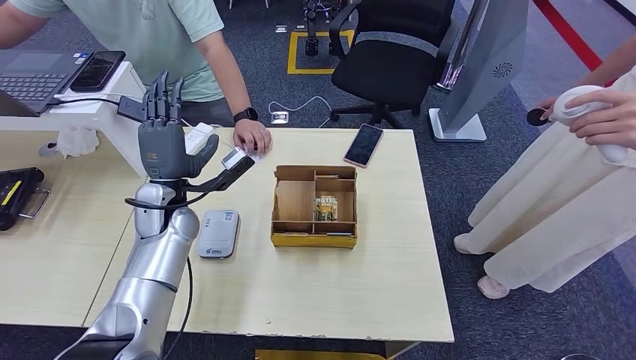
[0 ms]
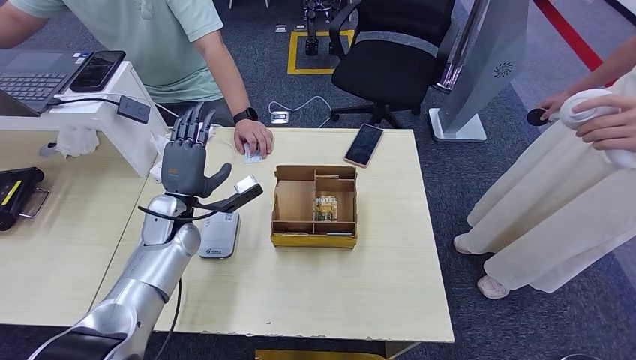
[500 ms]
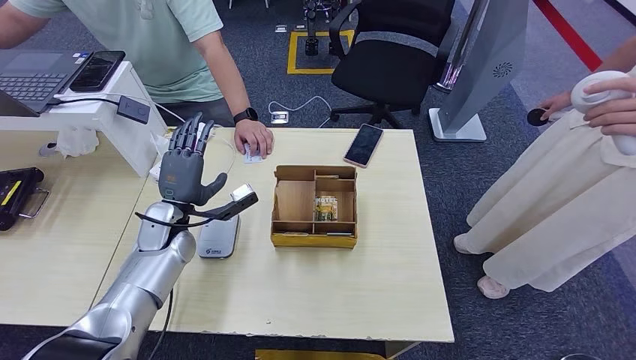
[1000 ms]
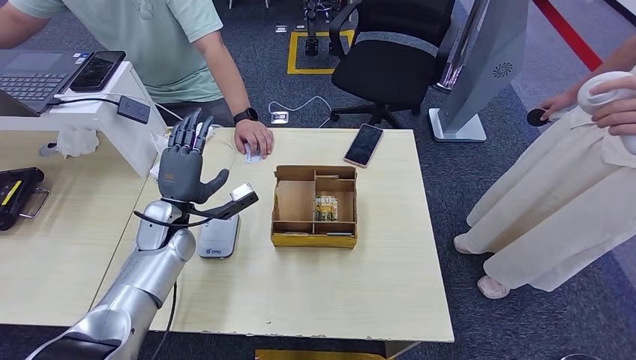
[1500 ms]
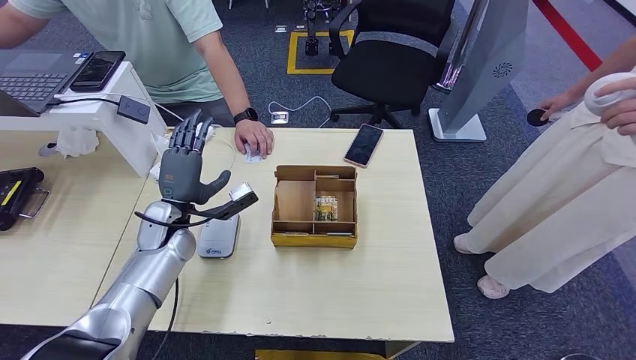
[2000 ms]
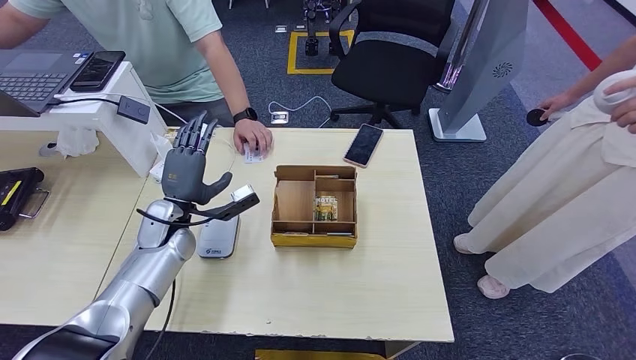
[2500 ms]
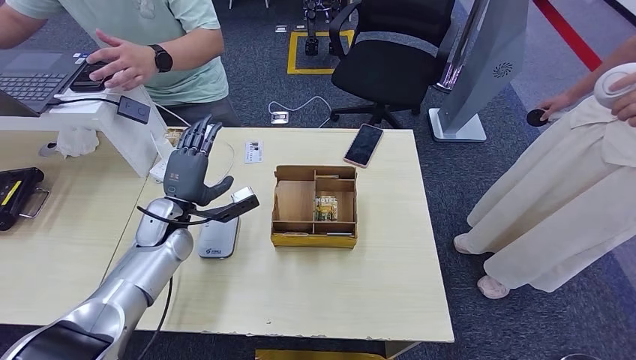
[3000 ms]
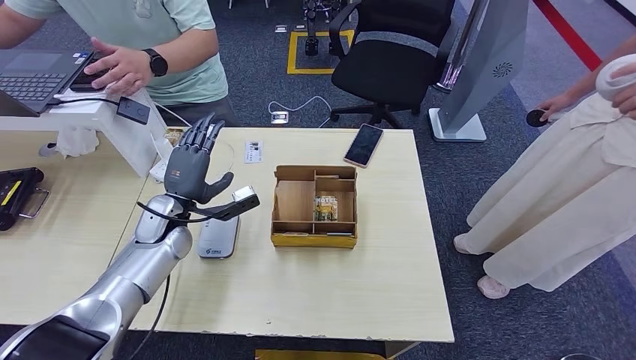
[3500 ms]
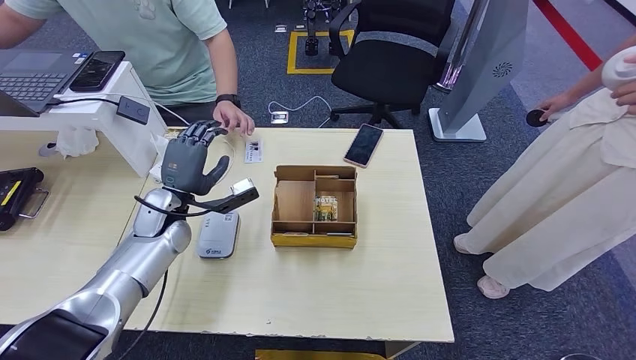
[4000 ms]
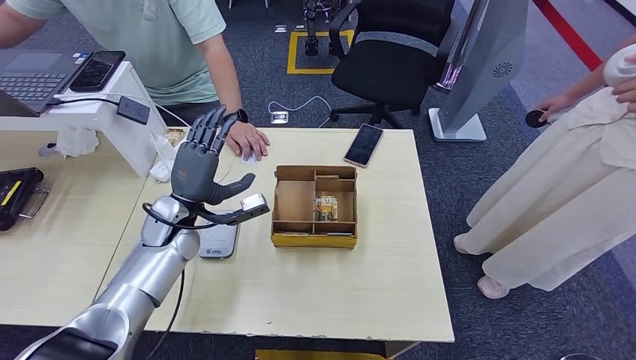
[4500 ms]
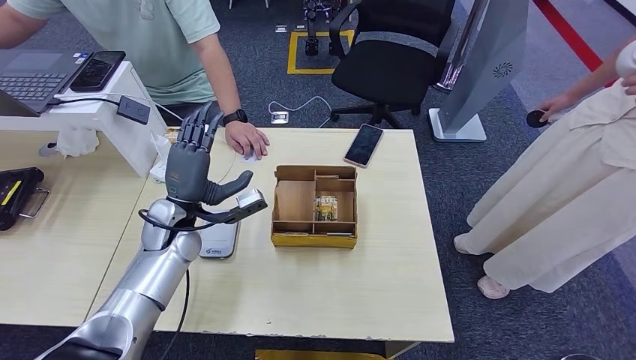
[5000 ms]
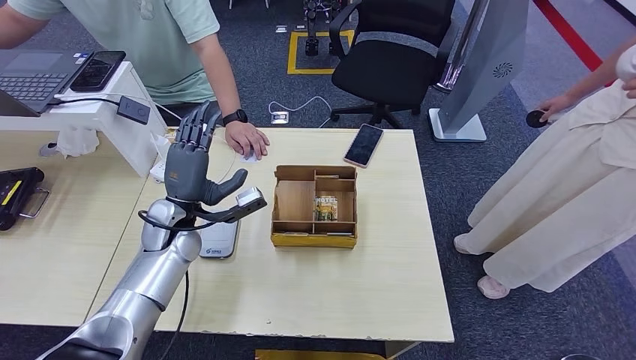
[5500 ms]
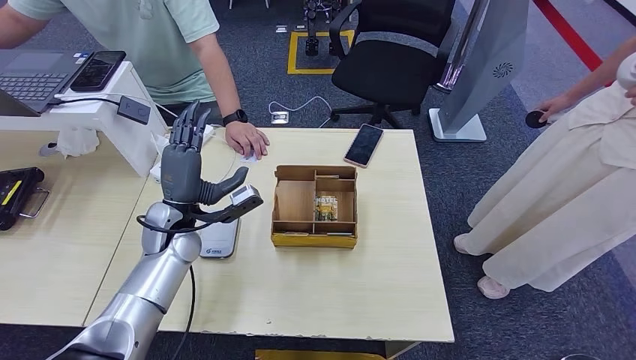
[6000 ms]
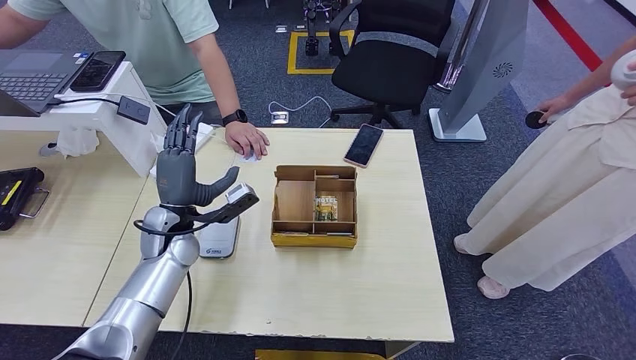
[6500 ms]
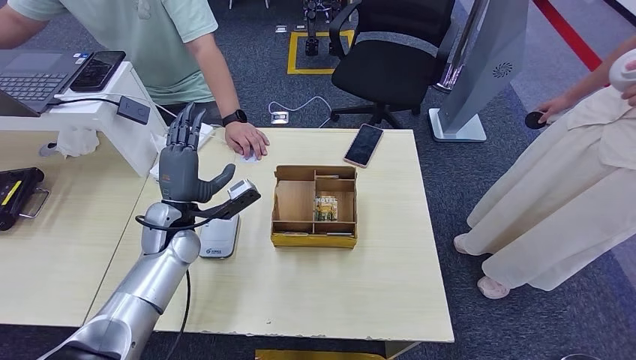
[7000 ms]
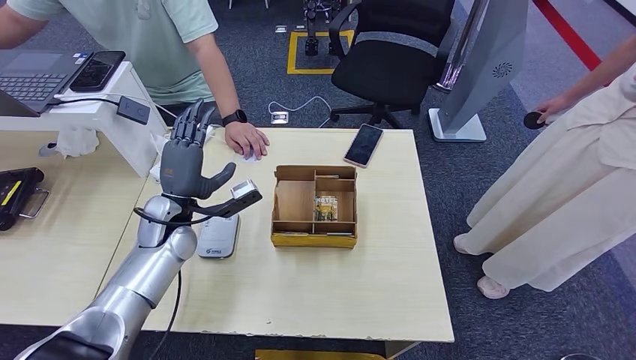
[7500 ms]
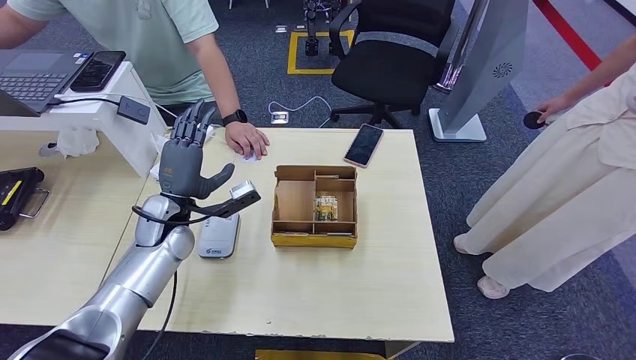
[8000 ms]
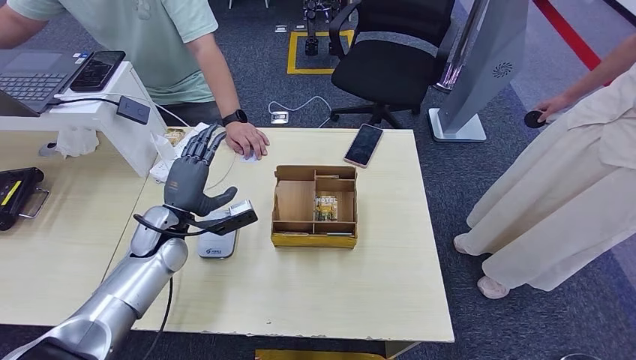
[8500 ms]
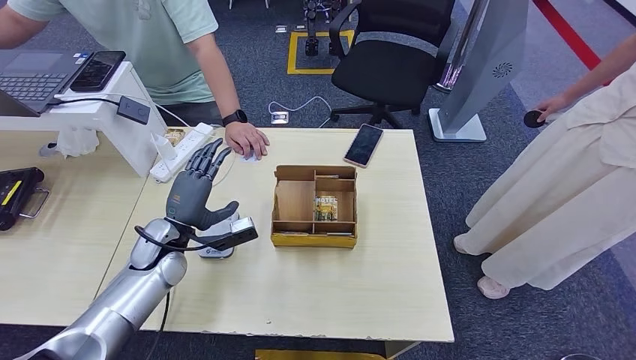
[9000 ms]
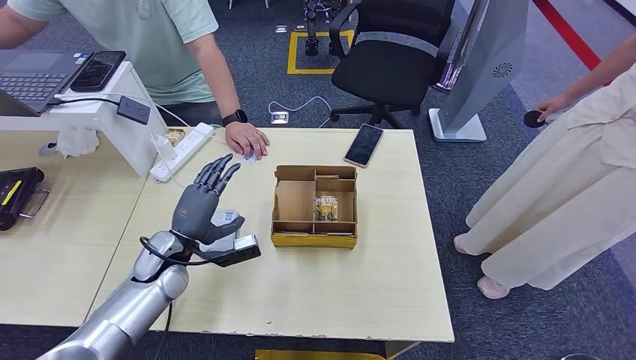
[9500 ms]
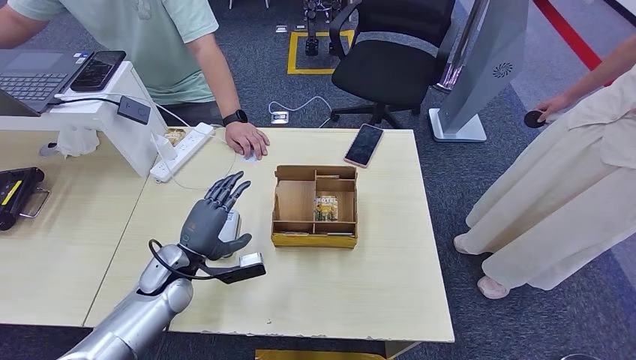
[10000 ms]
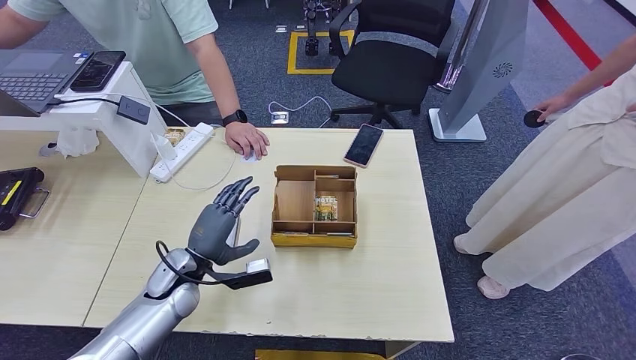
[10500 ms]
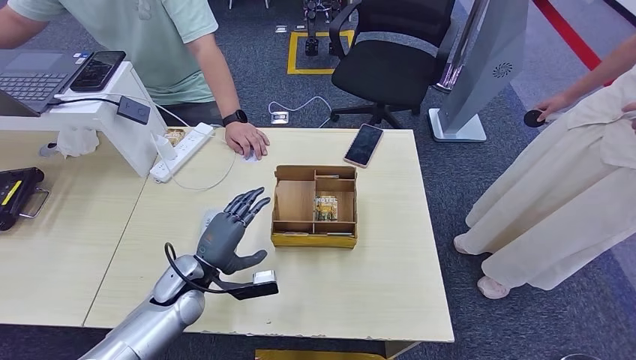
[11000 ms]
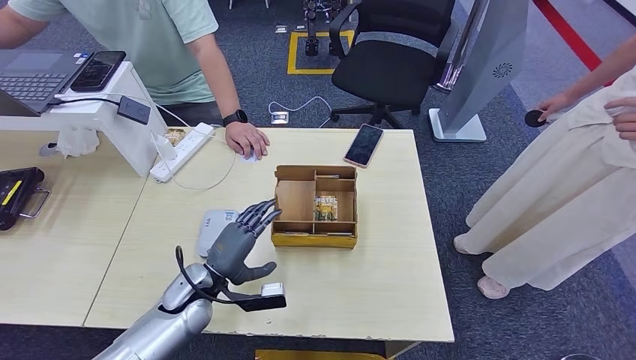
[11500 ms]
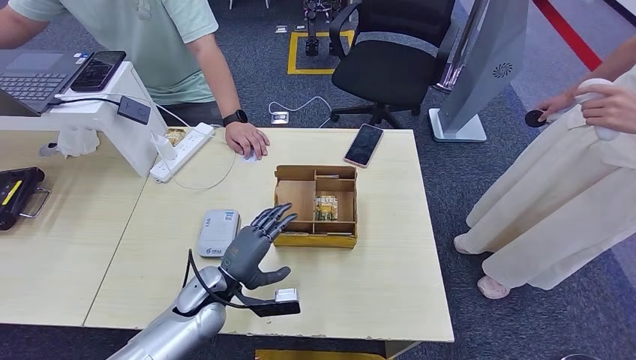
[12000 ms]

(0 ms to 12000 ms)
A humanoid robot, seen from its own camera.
0 ms - 2000 ms: The left hand moves downward, about 5 cm.
2000 ms - 8000 ms: The hands make only small movements.
8000 ms - 10000 ms: The left hand heads downward and backward, covering roughly 10 cm.
10000 ms - 12000 ms: The left hand travels to the right by approximately 5 cm.

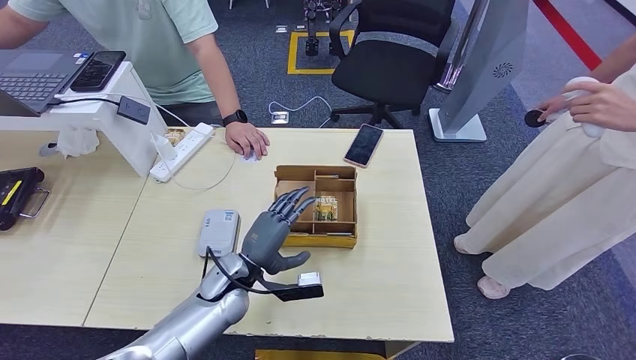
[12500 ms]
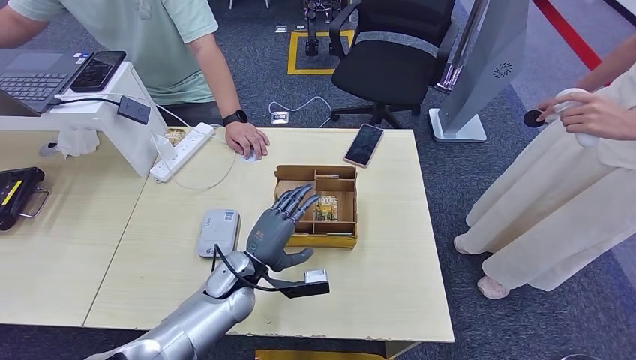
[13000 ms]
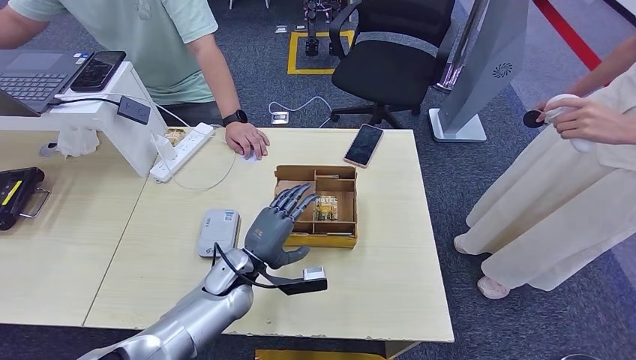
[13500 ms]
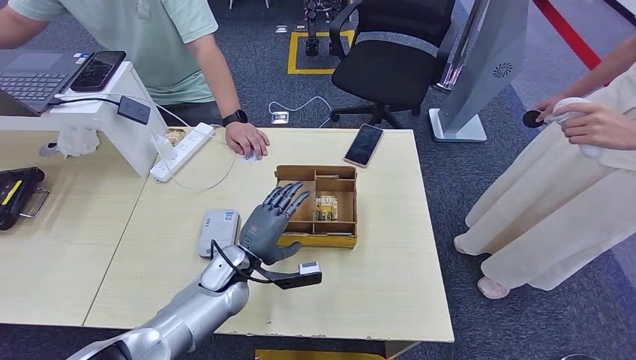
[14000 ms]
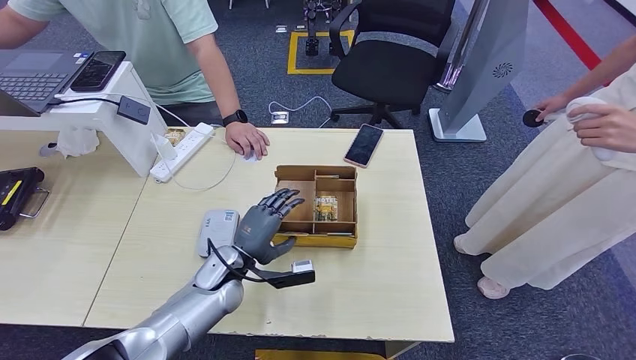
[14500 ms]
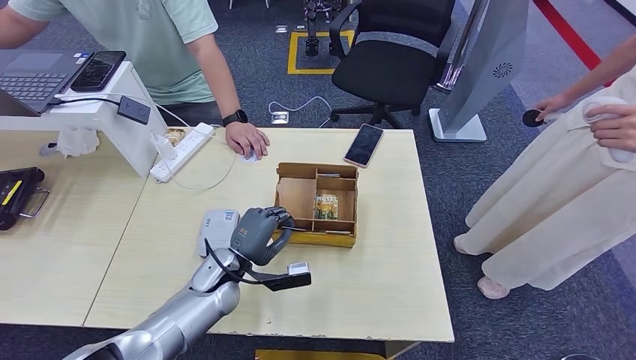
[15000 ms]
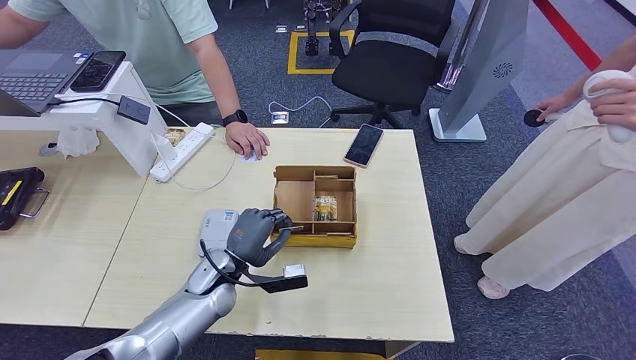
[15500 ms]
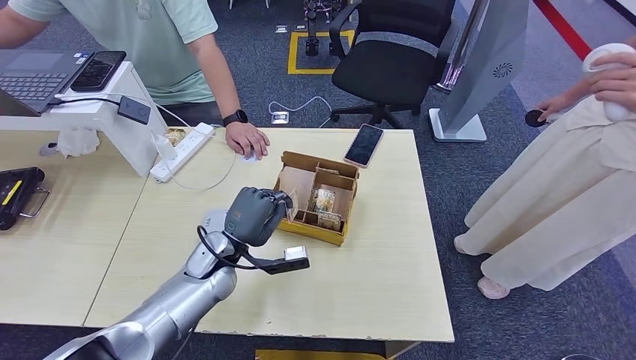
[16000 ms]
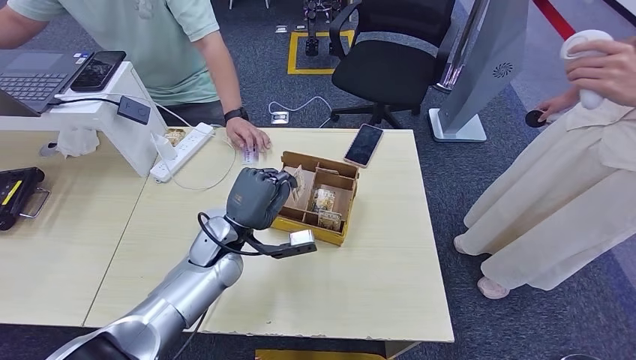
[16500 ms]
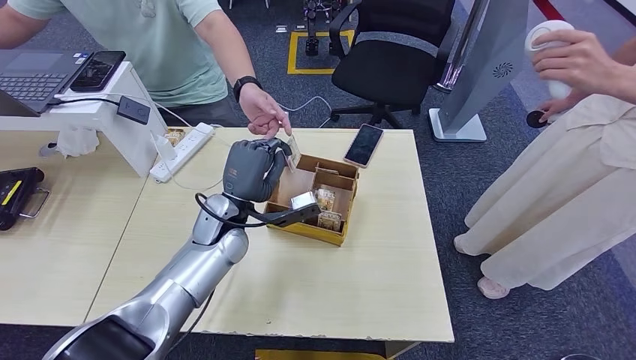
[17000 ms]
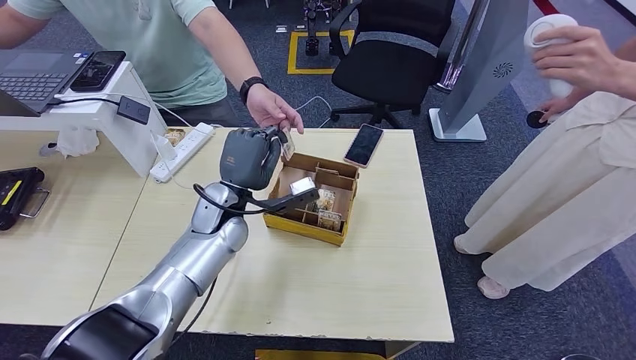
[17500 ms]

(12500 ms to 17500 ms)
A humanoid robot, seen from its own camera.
Step, 13000 ms - 16000 ms: Pick up the room key from the key card box.
Step, 16500 ms - 17500 ms: Hand the room key to the person.
12500 ms - 15000 ms: The hands stay close to where they were, moving slightly.
15000 ms - 17500 ms: The left hand goes some 15 cm upward and forward.
